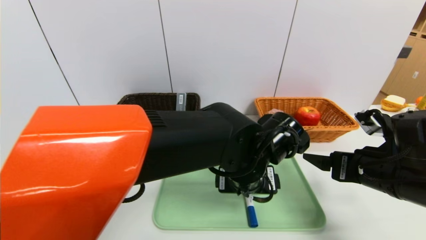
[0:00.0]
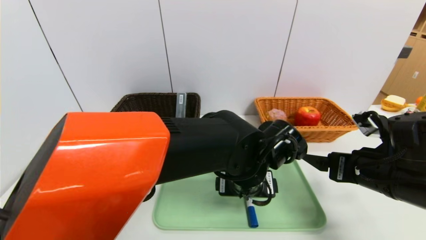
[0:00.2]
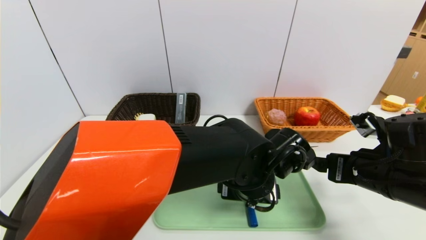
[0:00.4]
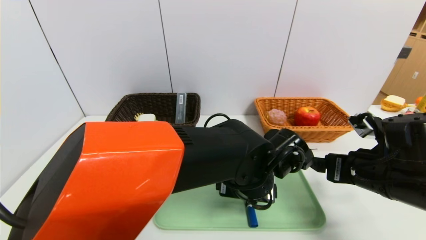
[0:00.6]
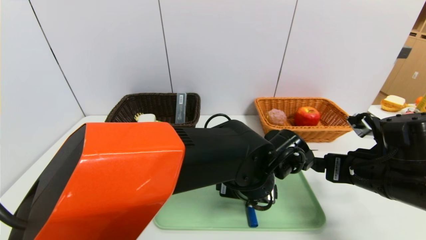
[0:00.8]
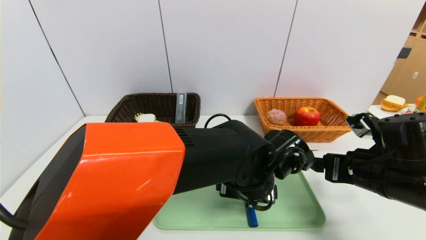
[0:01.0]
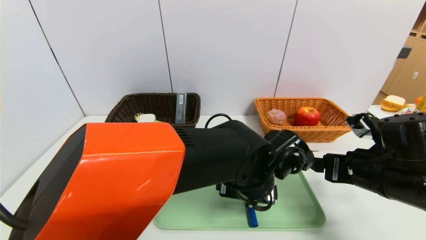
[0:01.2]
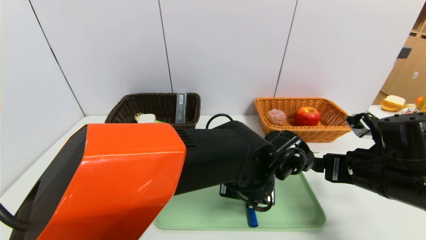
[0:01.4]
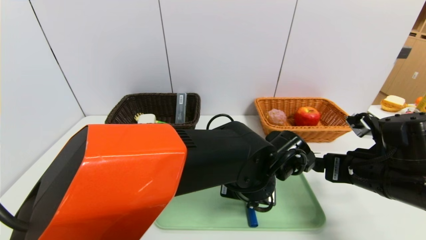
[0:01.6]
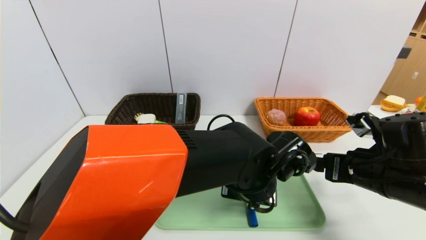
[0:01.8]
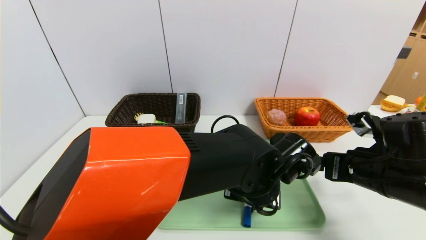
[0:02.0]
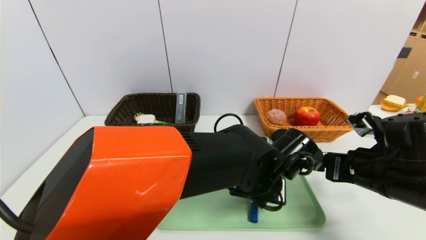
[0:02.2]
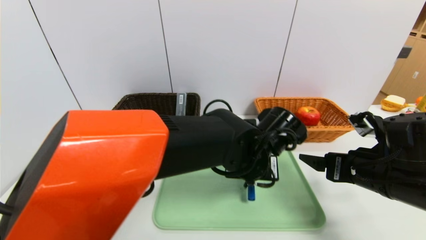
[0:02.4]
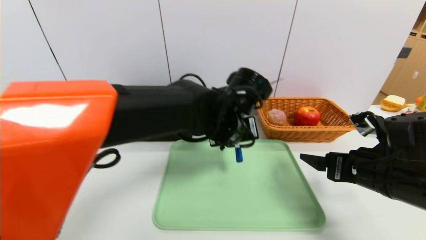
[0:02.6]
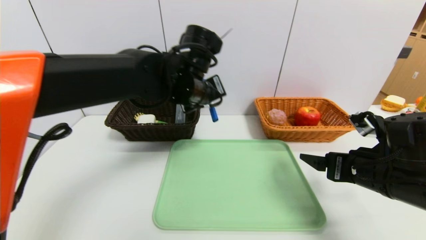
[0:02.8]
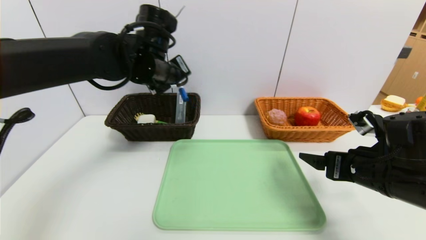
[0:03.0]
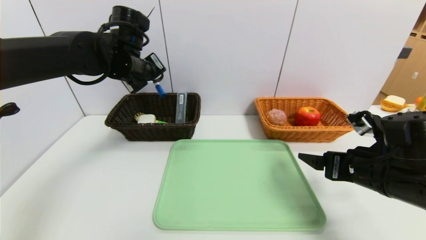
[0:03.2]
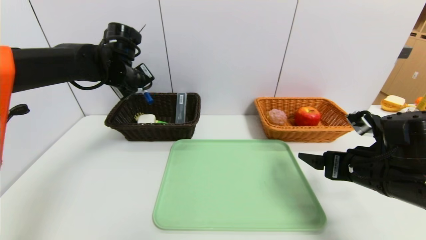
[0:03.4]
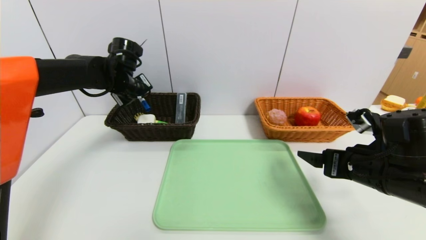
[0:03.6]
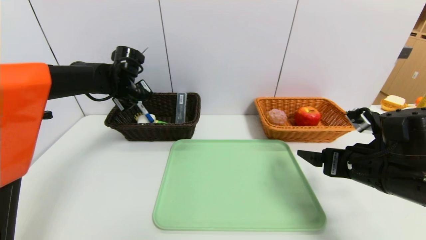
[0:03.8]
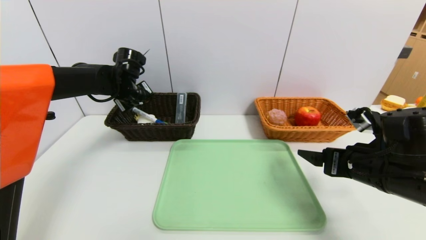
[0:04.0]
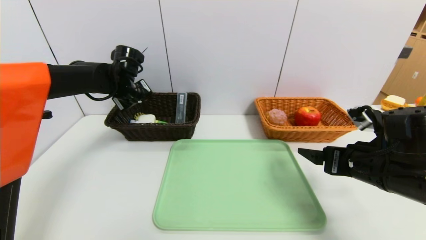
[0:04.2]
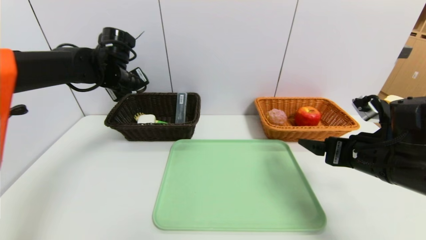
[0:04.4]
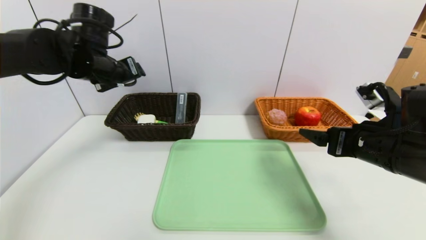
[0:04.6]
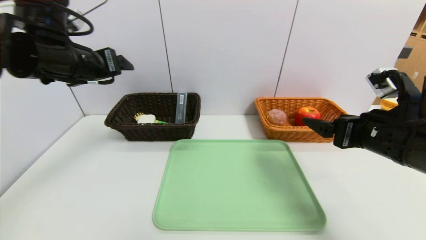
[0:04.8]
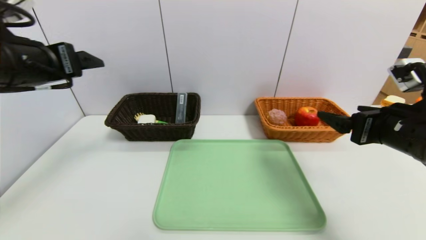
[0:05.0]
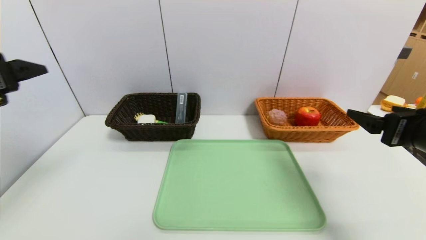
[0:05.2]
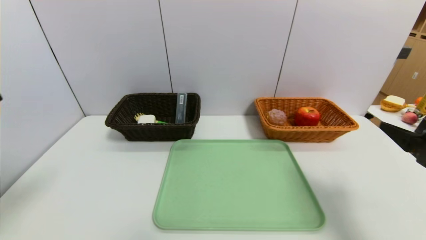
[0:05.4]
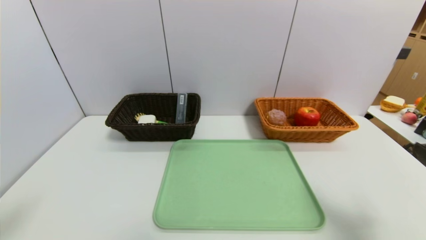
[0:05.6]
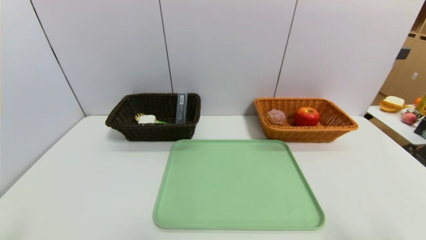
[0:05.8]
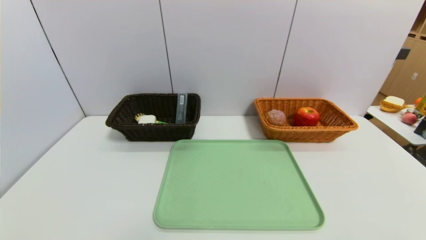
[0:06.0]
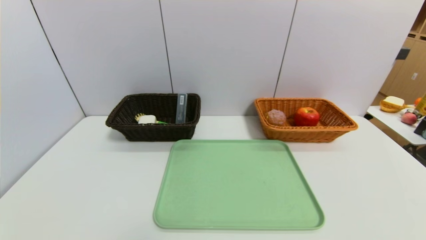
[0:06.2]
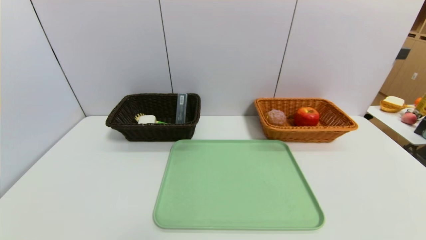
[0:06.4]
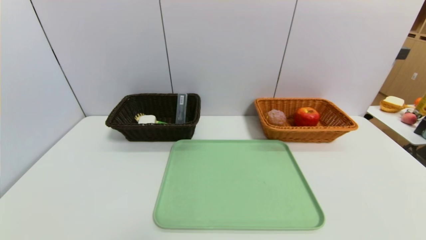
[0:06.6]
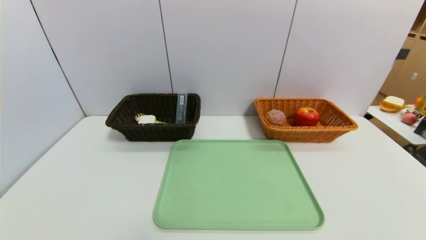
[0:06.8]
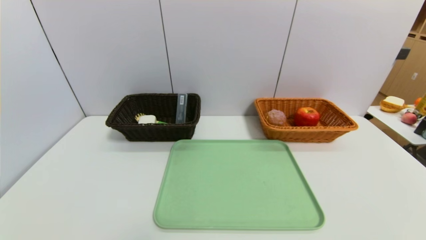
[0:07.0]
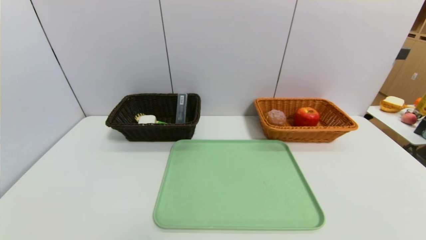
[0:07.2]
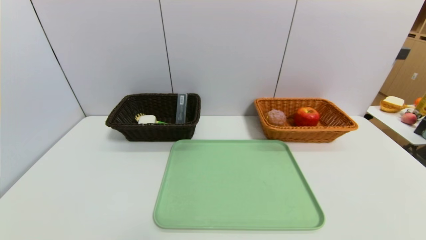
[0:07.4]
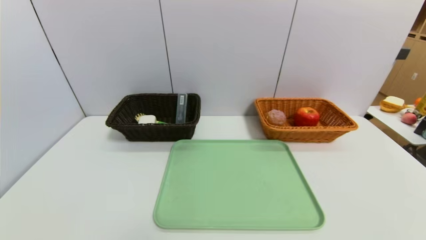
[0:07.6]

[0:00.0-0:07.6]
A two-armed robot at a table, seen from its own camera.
Task of the whole recording: place the food in the right basket with the right gripper, and place the non food items in the left basket with the left gripper.
Step, 0:00.0 to 0:05.6: Grasp the blue marker and put it in the left basket.
0:00.0 to 0:01.6: The left gripper closes.
0:01.6 to 0:03.0: The left gripper shifts some 30 cm to the left, upward and forward, and closes.
0:03.0 to 0:04.6: The left gripper moves to the left, approximately 10 cm, and opens its fingers.
0:04.6 to 0:06.0: The left gripper shifts some 40 cm backward. Meanwhile the right gripper shifts about 25 cm backward.
